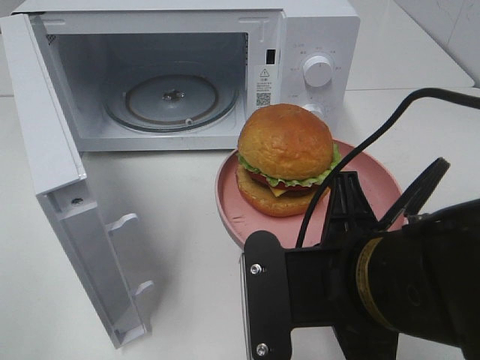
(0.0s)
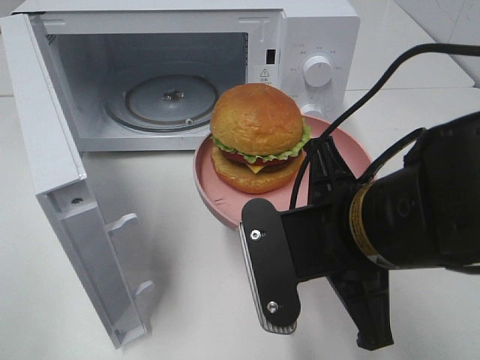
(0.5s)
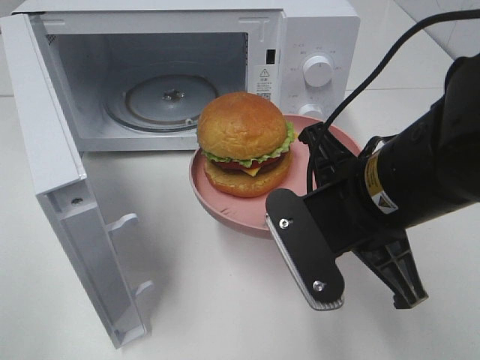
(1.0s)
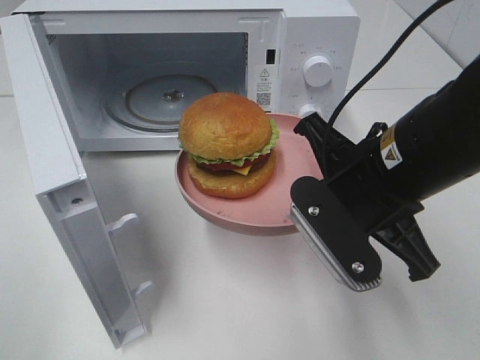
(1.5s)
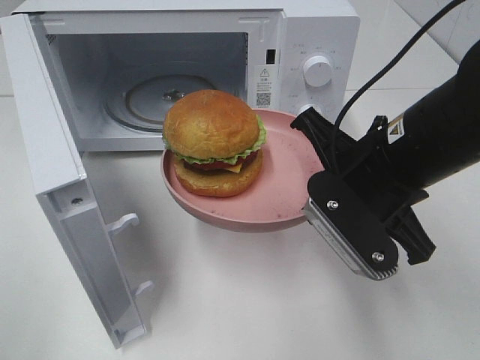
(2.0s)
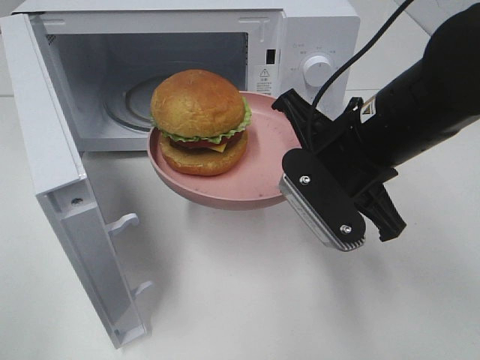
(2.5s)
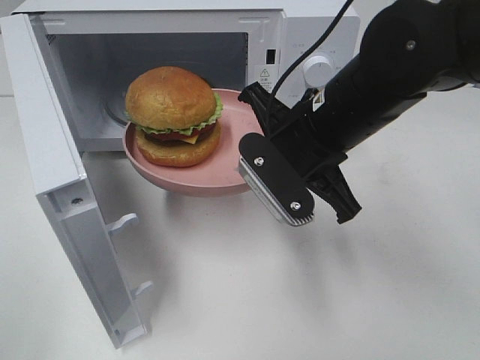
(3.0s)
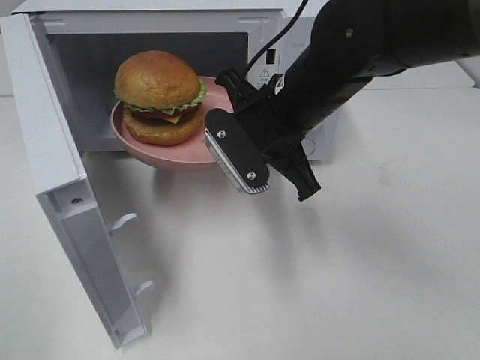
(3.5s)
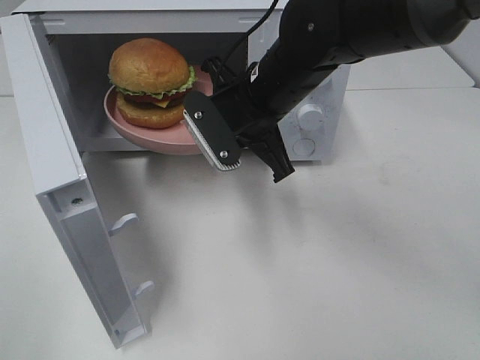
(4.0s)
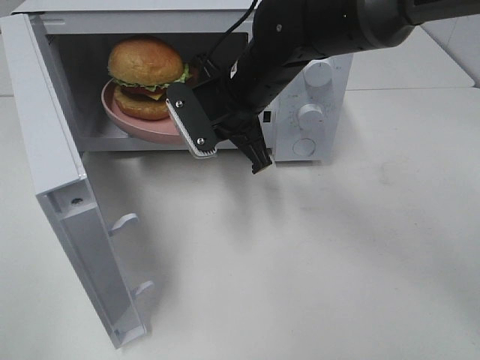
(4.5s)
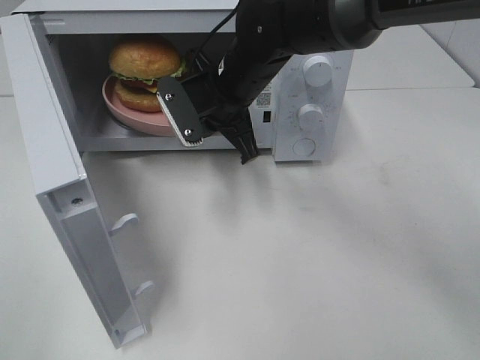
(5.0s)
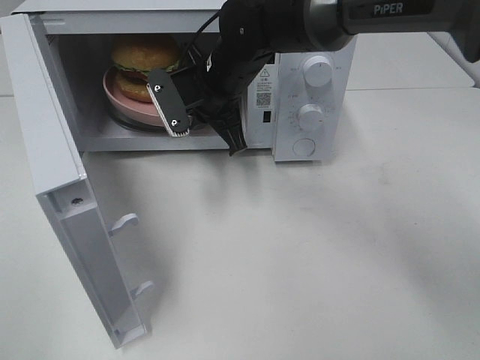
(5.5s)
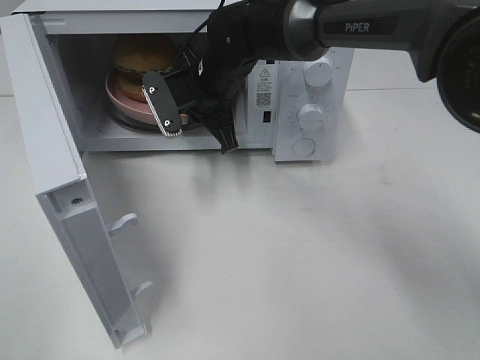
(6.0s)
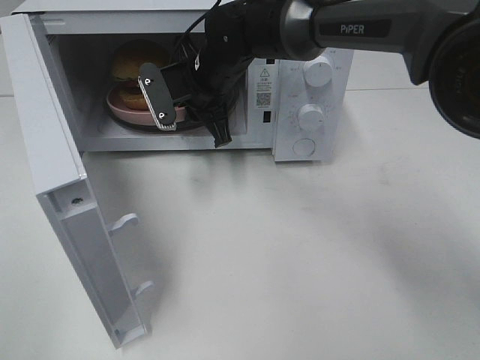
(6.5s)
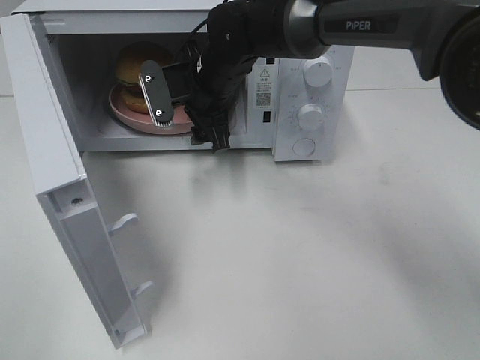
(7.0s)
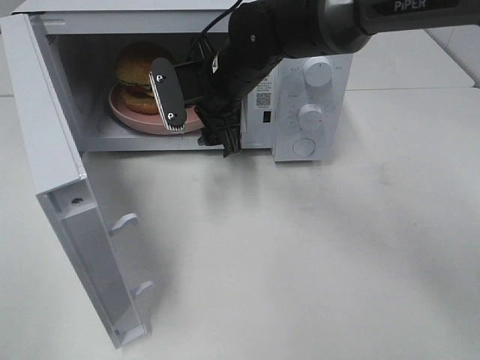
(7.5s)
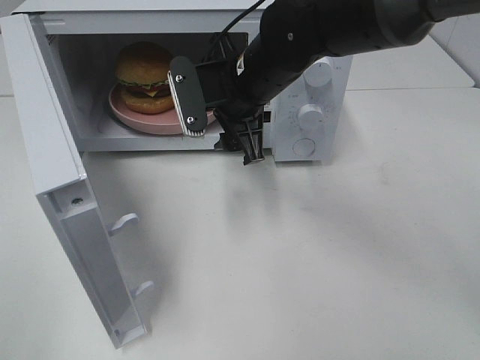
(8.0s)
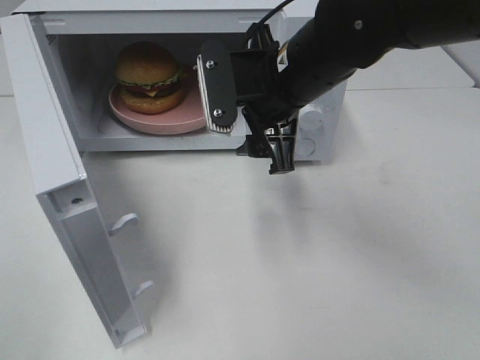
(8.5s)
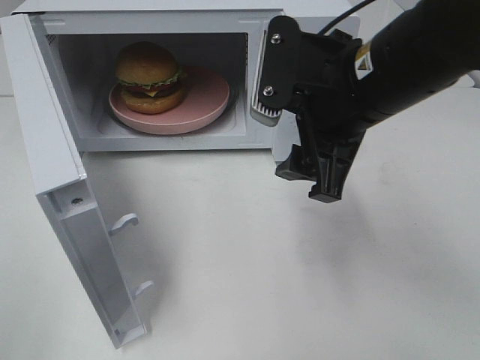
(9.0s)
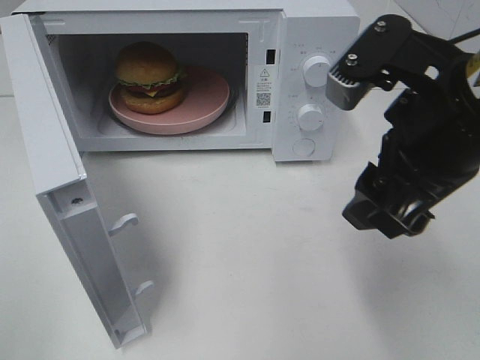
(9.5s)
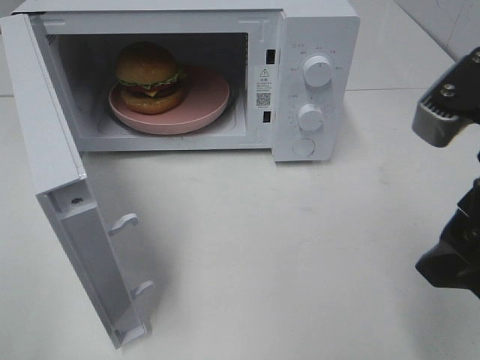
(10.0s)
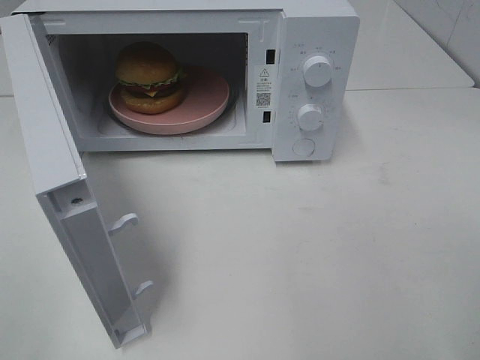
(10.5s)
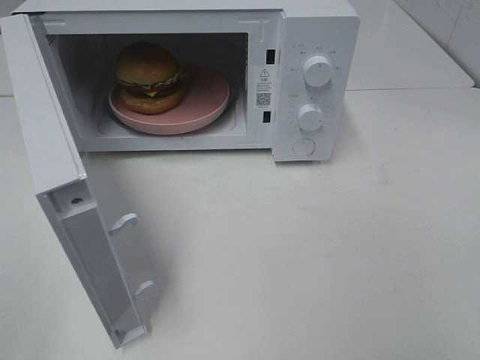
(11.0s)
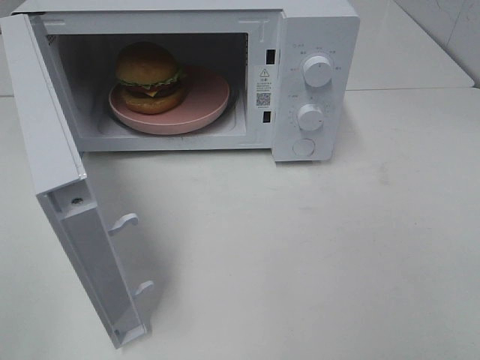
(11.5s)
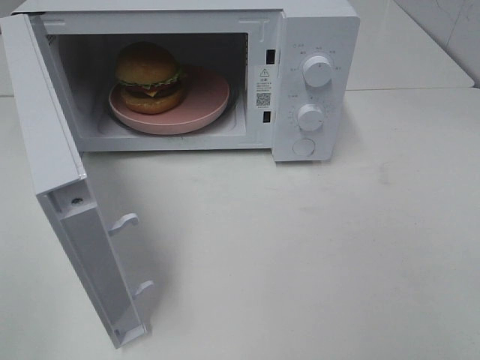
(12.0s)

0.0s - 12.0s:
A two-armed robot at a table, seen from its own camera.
Task of the whole recording: Heat the burger.
Step, 0.0s - 6.5s: Right hand: place the plate in the microwave.
0.0s - 2.0s: The right gripper shifts some 10 cm forward.
2.0s - 4.0s: The right gripper heads forward and to the left, covering about 15 cm.
4.0s - 6.0s: The right gripper goes roughly 10 cm forward and to the left.
6.0s - 8.0s: The right gripper moves backward, roughly 5 cm, and opens up.
8.0s - 10.0s: The right gripper travels backward and to the right by about 30 cm.
10.0s - 12.0s: The right gripper moves backward and to the right, some 15 cm.

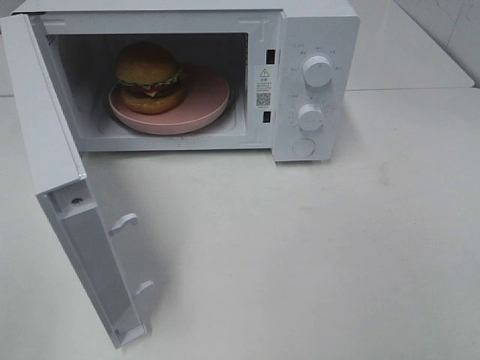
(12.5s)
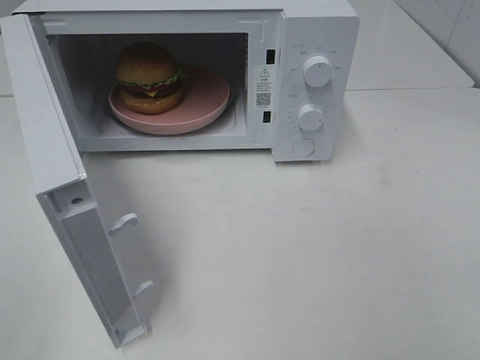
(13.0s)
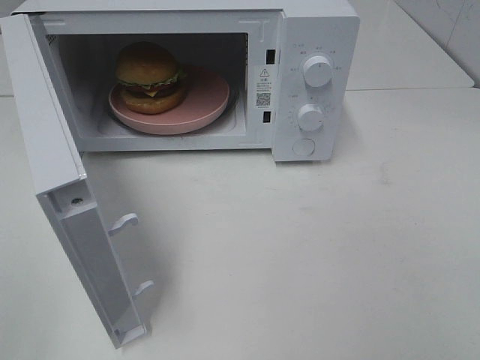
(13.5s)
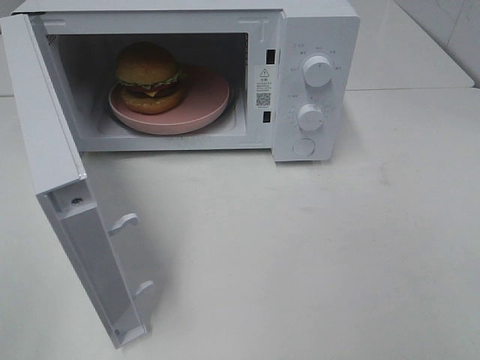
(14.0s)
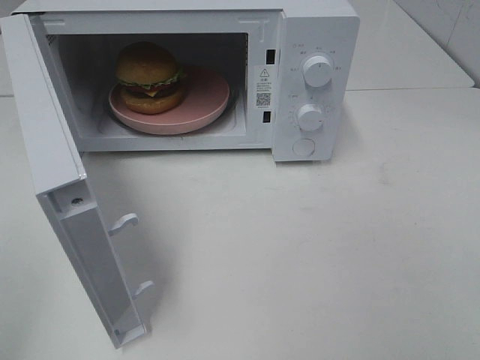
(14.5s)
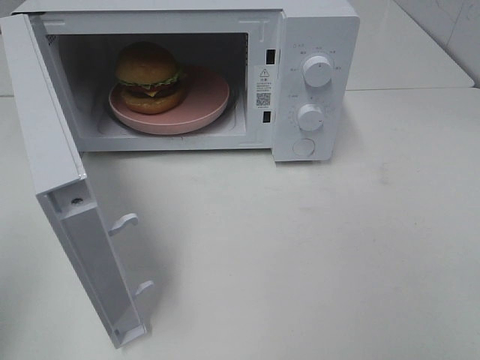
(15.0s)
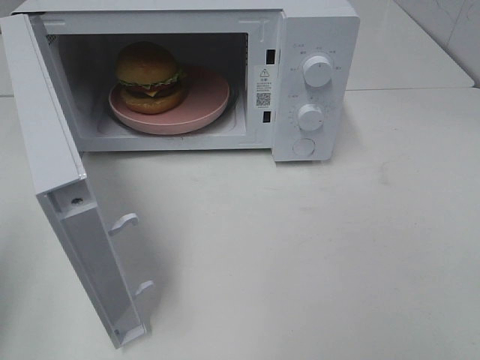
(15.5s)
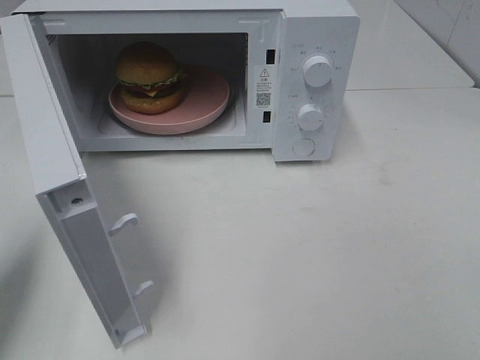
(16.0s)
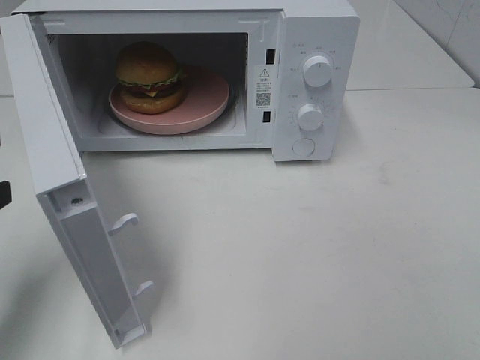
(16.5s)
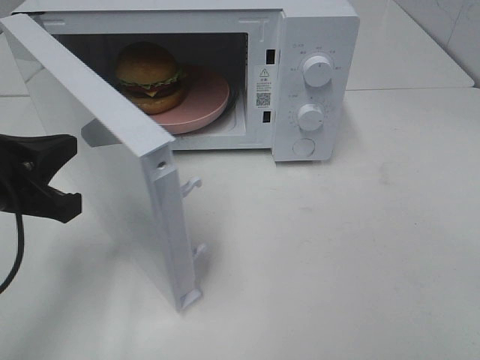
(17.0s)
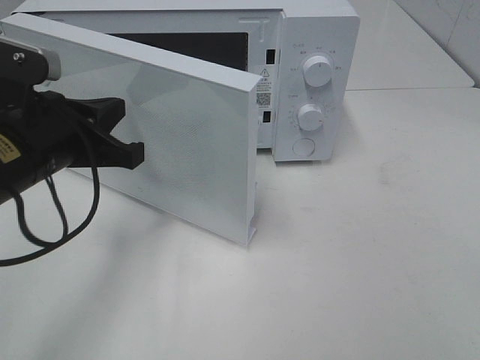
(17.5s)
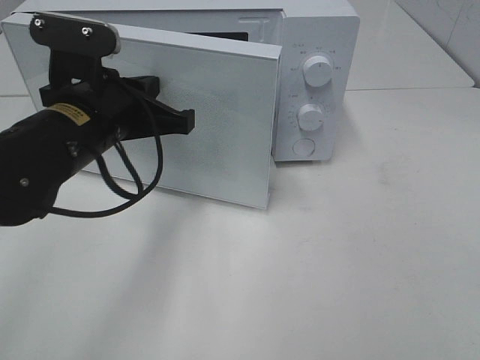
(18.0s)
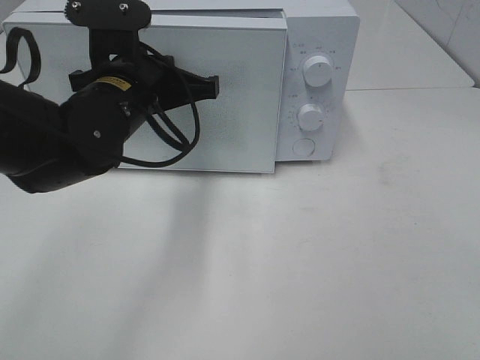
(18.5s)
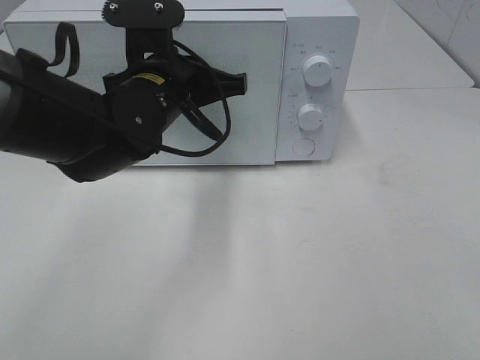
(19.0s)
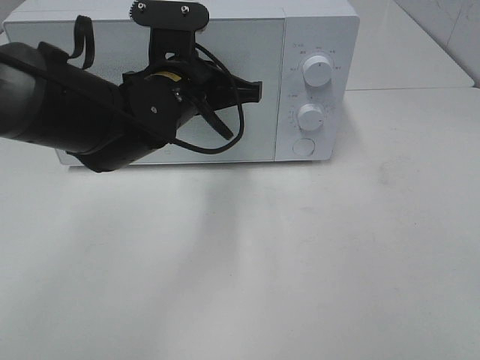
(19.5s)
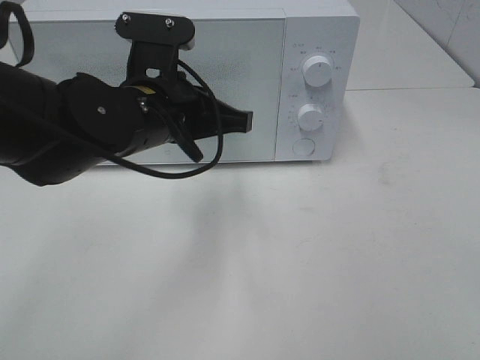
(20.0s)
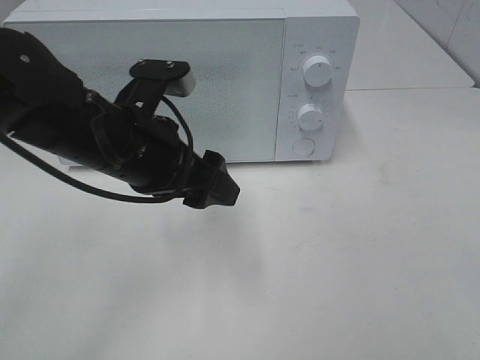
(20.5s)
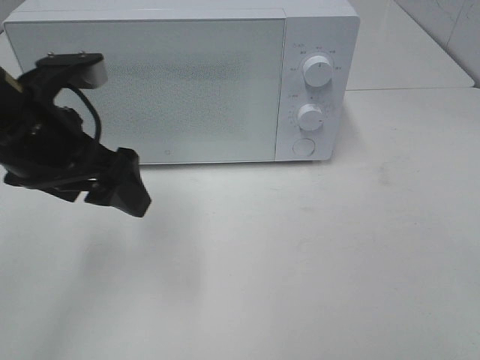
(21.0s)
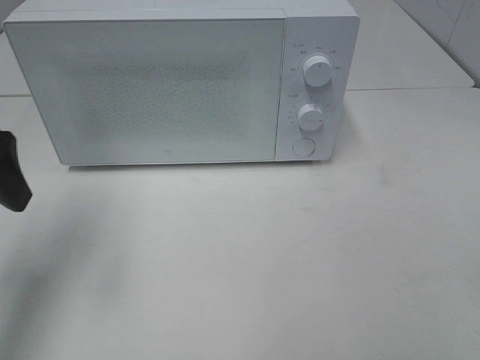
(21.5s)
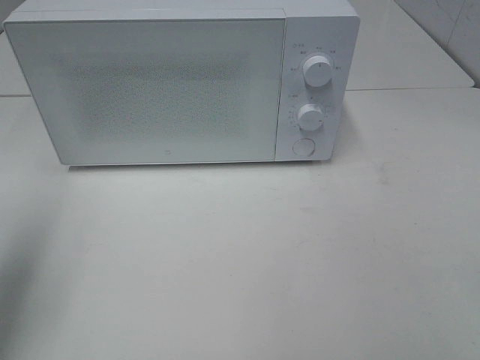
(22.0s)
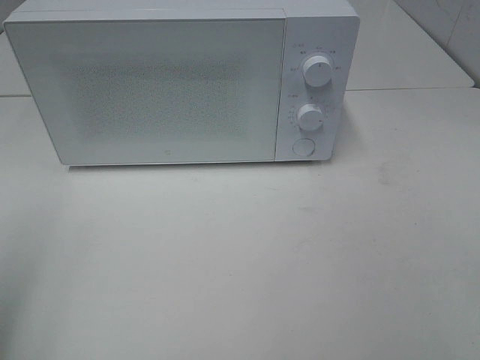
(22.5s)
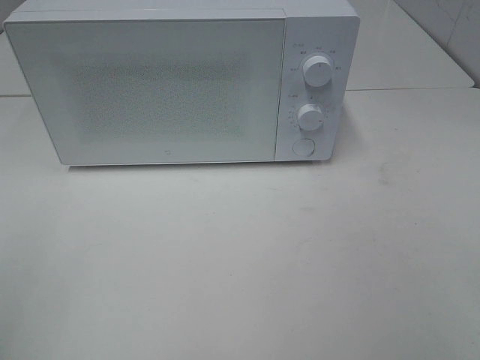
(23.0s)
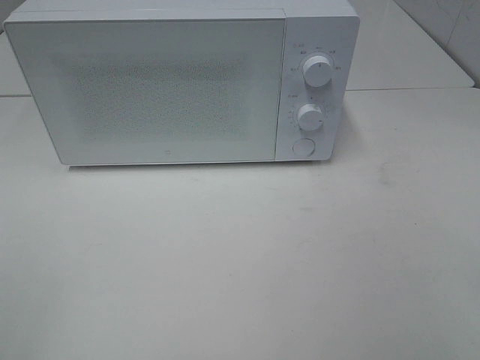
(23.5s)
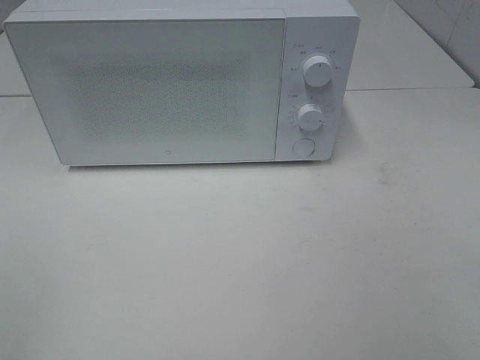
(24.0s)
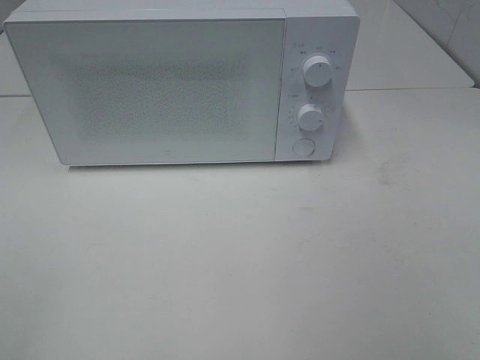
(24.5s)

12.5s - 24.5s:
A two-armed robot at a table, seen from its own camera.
Task of the whole recording: Heat the burger.
Step, 12.5s - 20.0s: Left hand: close the microwave door.
14.5s - 16.5s: The left gripper moves forward and downward, about 20 cm, and closes its fingers.
16.5s - 18.5s: The left gripper shifts about 20 cm to the right and forward.
18.5s - 20.5s: The left gripper heads backward, covering some 5 cm, and opens.
20.5s - 22.5s: The left gripper travels to the left, backward and upward by roughly 30 cm.

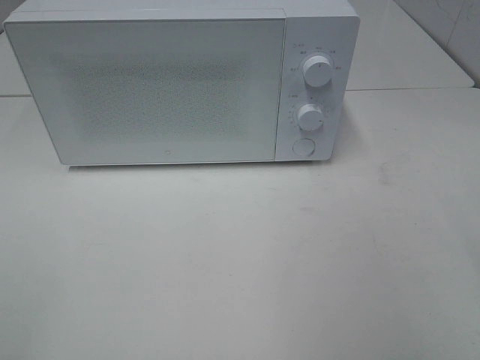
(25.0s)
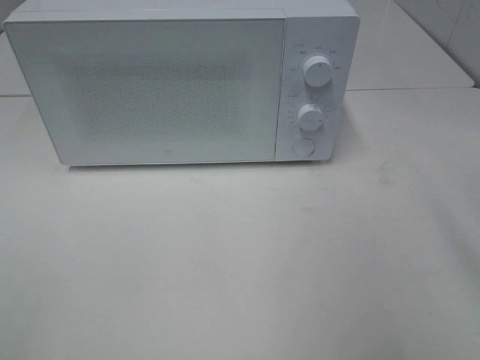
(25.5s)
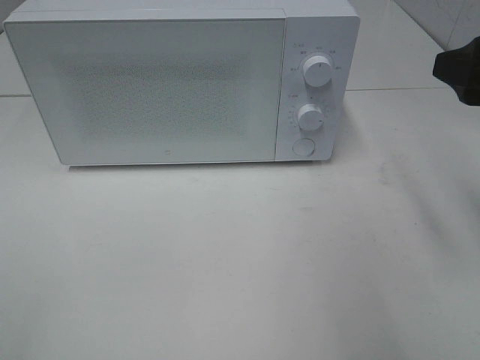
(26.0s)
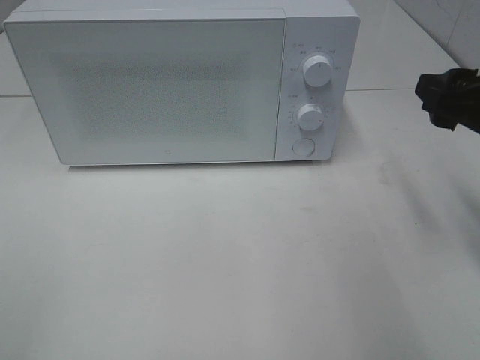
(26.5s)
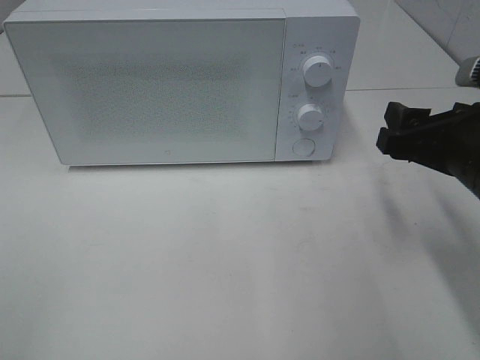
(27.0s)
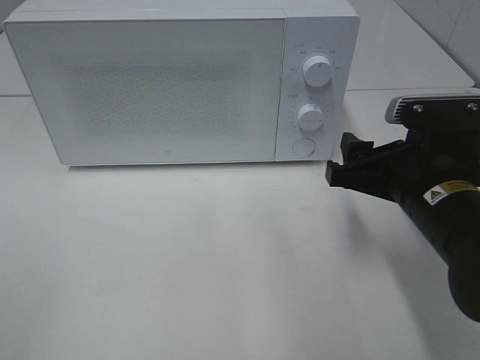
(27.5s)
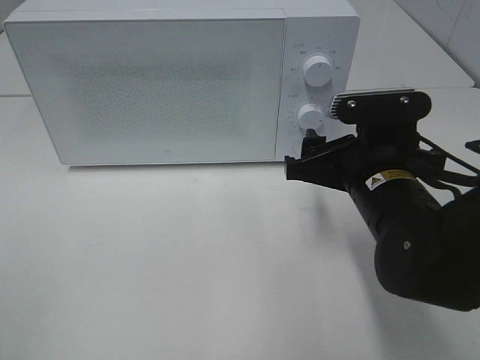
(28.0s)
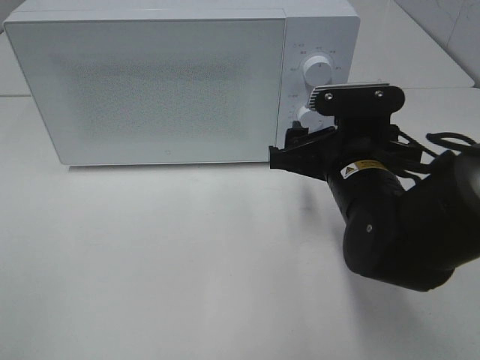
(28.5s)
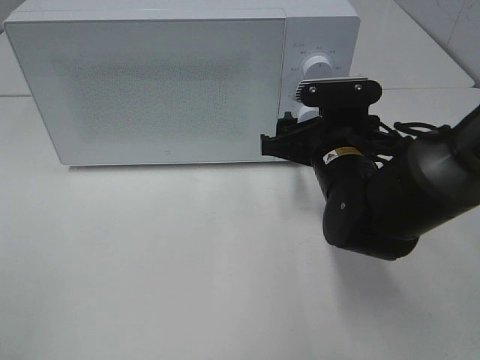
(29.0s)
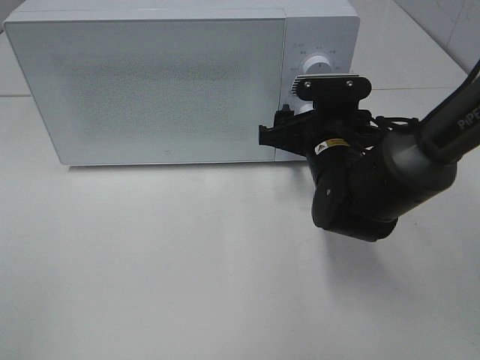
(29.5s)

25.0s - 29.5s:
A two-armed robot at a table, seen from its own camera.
Task of the whole recording: Heat the burger.
25.0s - 27.0s: The right gripper goes approximately 20 cm forward and downward.
27.0s - 29.5s: The right gripper goes about 15 cm forward, to the left and downward.
